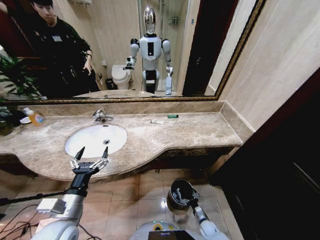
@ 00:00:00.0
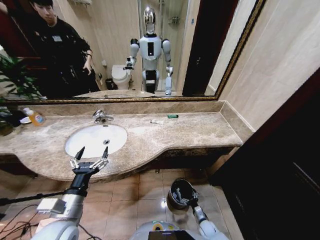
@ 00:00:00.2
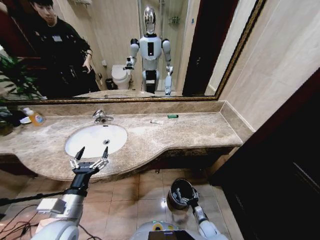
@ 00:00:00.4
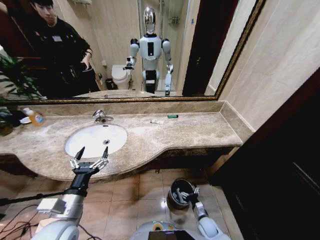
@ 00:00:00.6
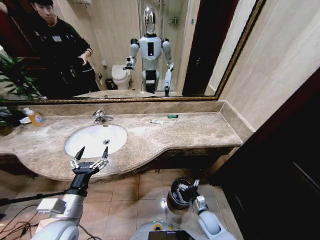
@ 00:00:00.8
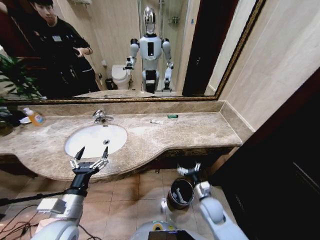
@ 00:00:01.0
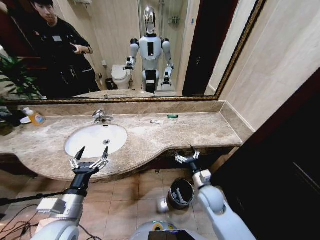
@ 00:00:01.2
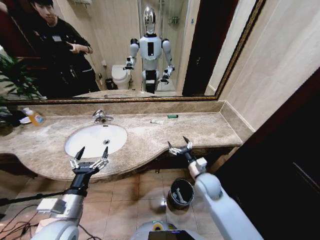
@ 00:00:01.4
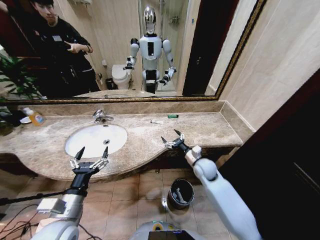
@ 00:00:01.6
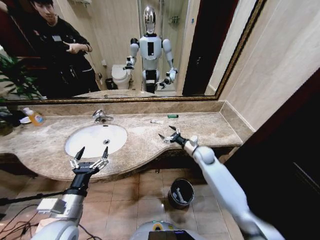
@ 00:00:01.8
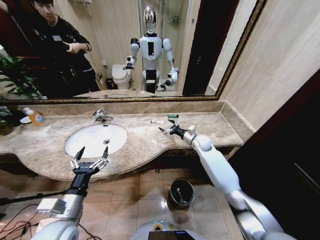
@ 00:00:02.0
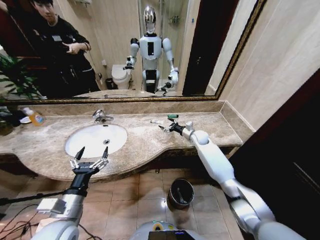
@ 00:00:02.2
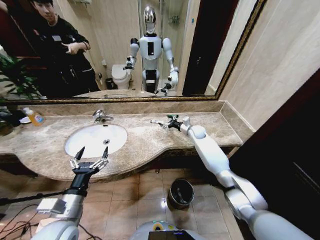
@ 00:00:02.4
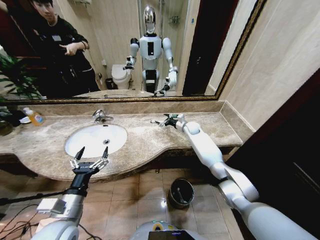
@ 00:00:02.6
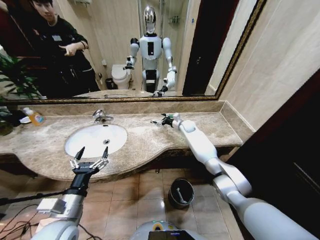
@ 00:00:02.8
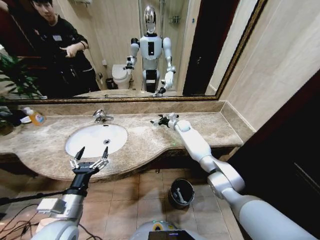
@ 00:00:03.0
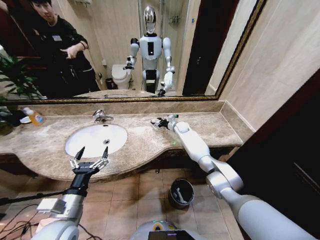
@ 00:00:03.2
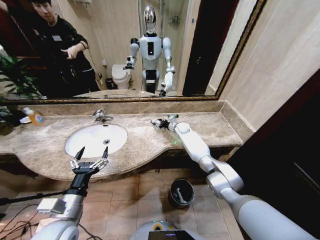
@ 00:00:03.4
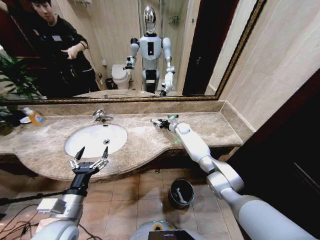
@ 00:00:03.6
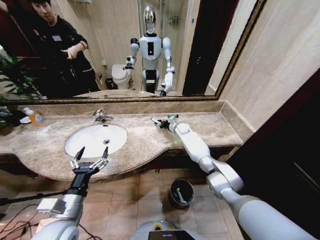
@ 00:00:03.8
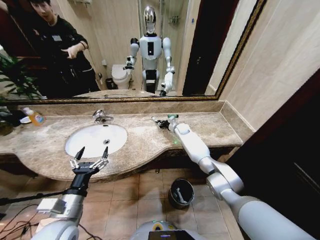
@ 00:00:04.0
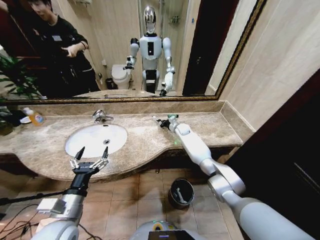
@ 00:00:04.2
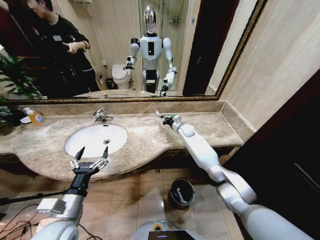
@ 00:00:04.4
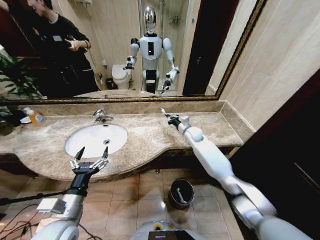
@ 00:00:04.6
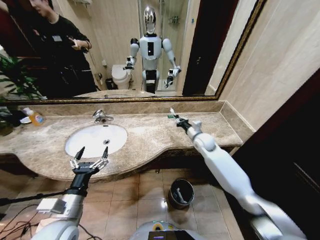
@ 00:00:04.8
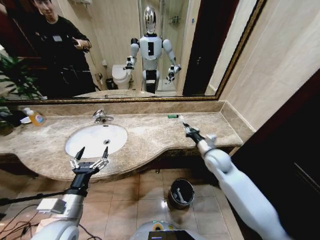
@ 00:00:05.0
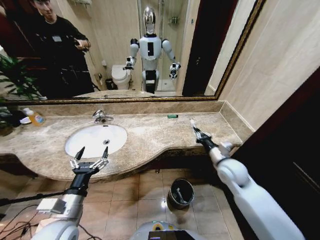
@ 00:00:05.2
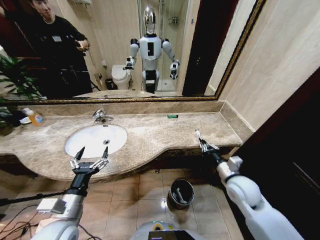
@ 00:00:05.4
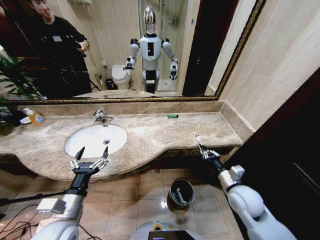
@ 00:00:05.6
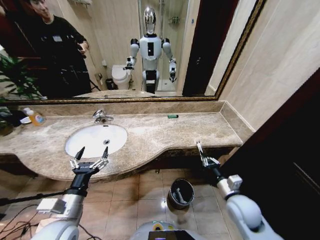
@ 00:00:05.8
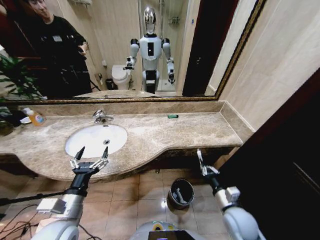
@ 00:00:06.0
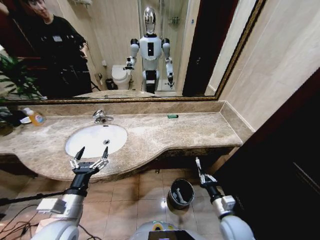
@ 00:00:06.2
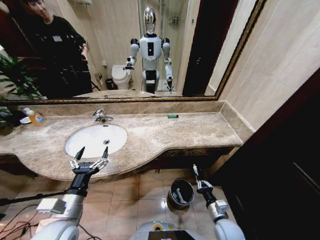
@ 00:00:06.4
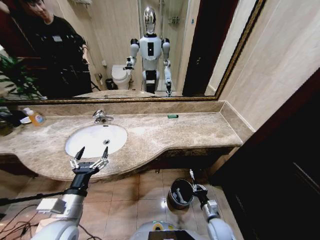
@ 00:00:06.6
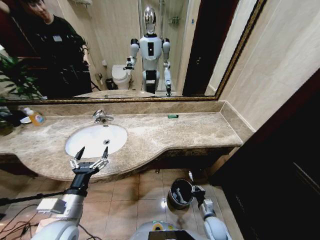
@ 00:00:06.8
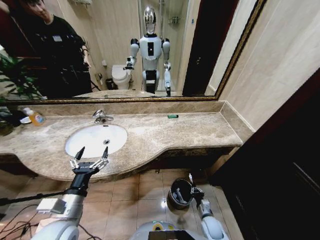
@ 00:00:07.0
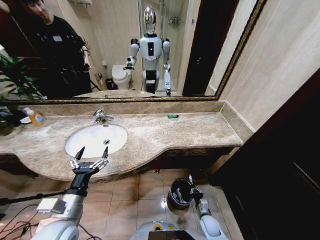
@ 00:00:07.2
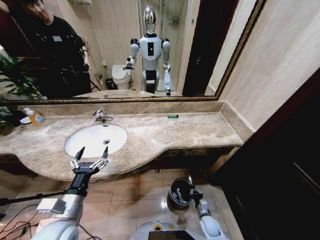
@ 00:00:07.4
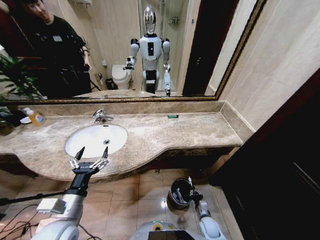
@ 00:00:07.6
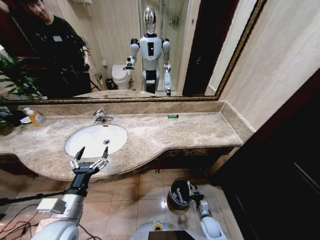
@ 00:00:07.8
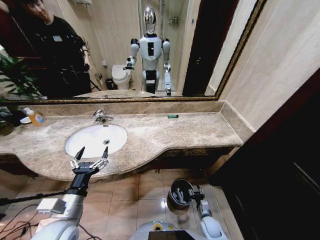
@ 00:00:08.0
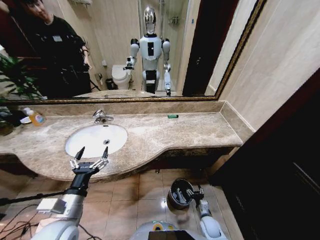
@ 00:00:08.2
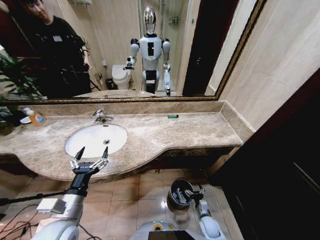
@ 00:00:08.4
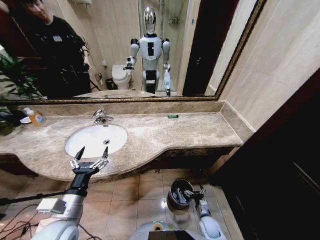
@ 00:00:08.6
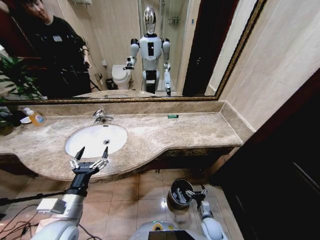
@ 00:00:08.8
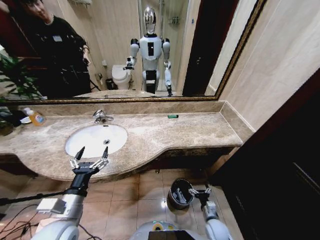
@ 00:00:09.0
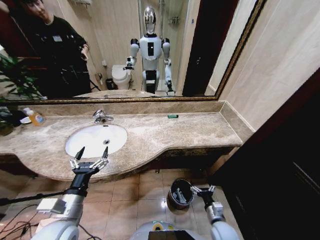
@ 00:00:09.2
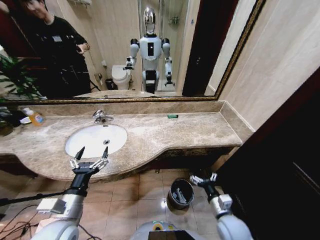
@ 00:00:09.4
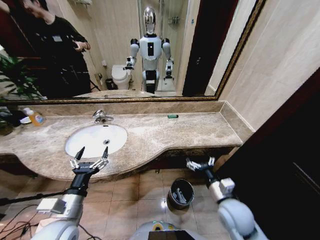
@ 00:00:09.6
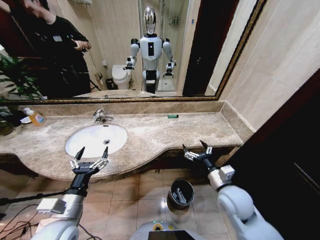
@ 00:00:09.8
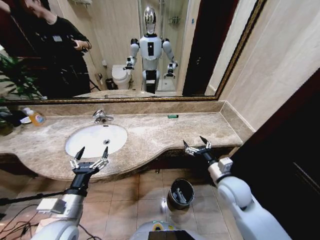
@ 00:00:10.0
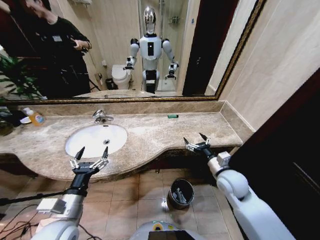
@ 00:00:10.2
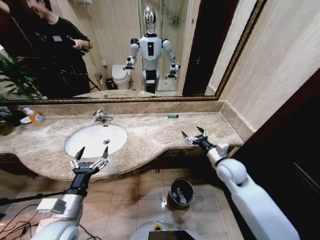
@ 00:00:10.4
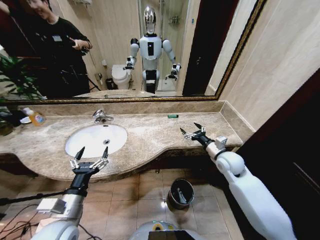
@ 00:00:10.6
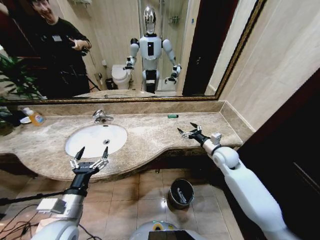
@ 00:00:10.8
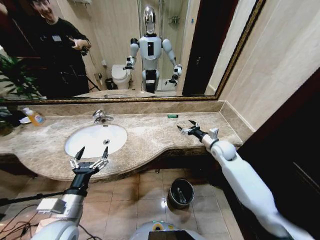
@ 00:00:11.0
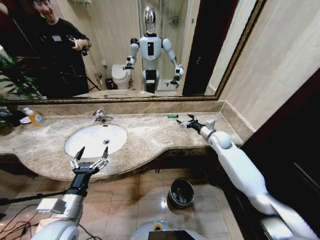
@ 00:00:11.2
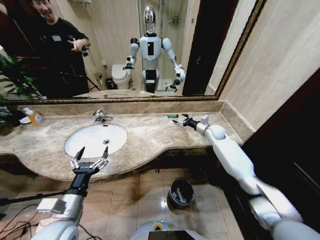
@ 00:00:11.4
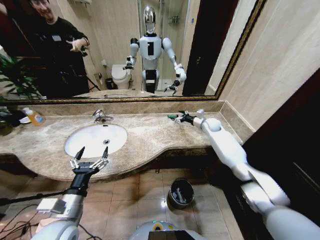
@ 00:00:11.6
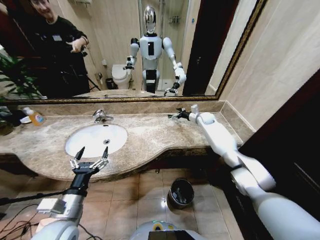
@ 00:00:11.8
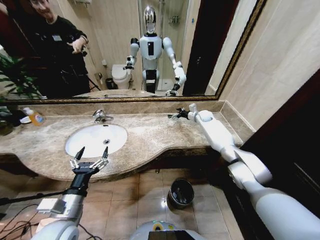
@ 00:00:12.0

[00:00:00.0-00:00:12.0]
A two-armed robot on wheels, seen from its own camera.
Task of the whole recording: Pick up the trash from the sink and place it in the trash bin.
00:00:00.0 to 00:00:01.6: The right gripper is displaced upward and forward by about 40 cm.
00:00:01.6 to 00:00:03.0: The right gripper is displaced forward by about 25 cm.
00:00:03.0 to 00:00:04.4: The right gripper closes up.
00:00:04.4 to 00:00:06.0: The right gripper shifts about 40 cm backward.
00:00:06.0 to 00:00:07.6: The right gripper goes about 25 cm downward.
00:00:07.6 to 00:00:09.0: The right gripper is displaced upward by some 5 cm, and opens.
00:00:09.0 to 00:00:10.4: The right gripper moves upward and forward, approximately 30 cm.
00:00:10.4 to 00:00:12.0: The right gripper heads forward, covering approximately 35 cm.

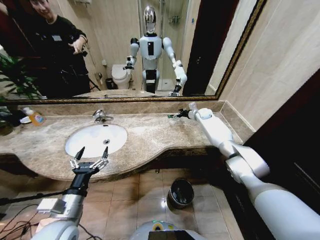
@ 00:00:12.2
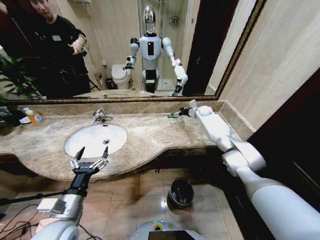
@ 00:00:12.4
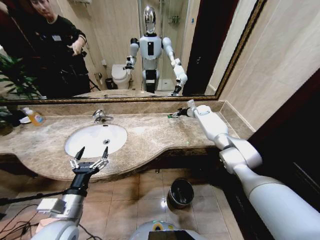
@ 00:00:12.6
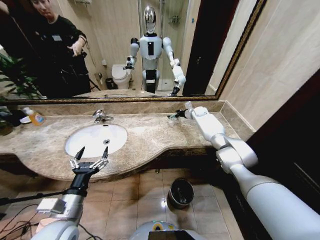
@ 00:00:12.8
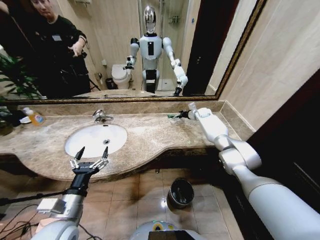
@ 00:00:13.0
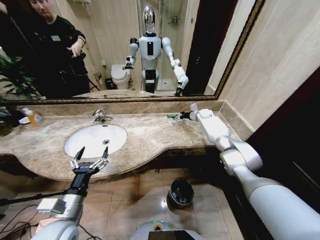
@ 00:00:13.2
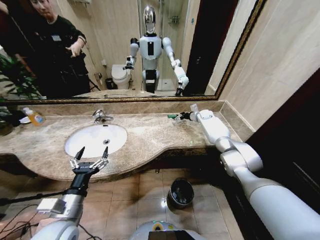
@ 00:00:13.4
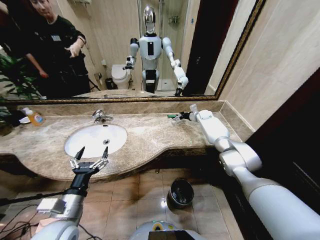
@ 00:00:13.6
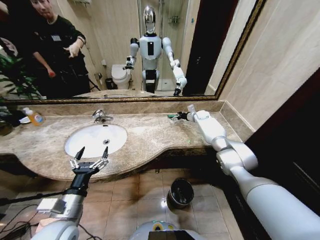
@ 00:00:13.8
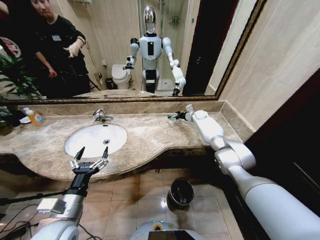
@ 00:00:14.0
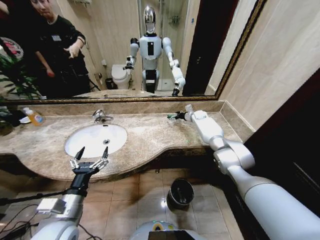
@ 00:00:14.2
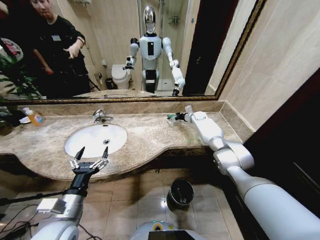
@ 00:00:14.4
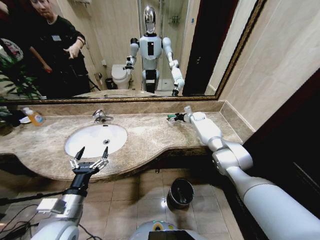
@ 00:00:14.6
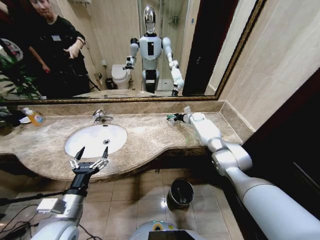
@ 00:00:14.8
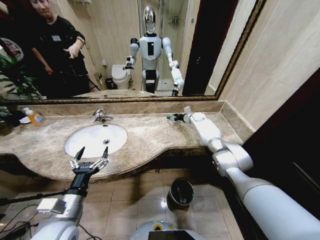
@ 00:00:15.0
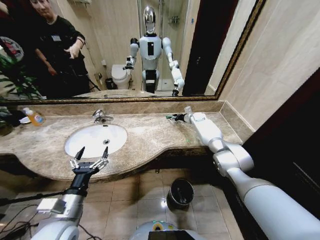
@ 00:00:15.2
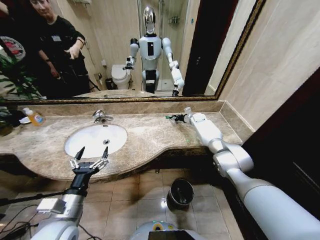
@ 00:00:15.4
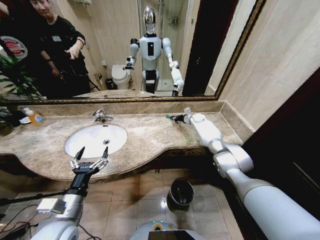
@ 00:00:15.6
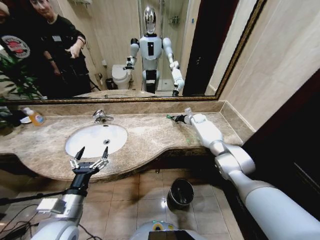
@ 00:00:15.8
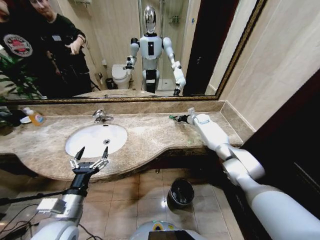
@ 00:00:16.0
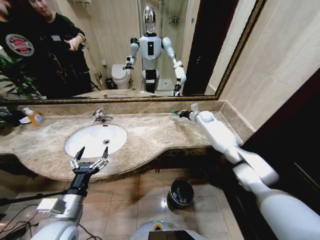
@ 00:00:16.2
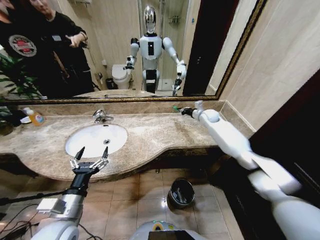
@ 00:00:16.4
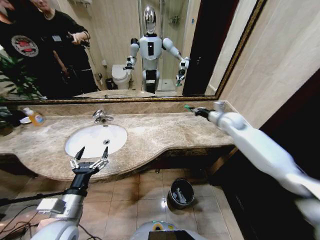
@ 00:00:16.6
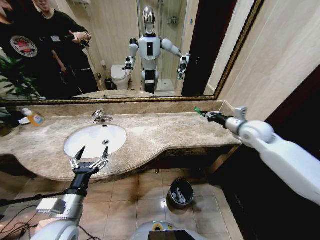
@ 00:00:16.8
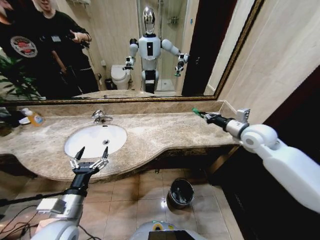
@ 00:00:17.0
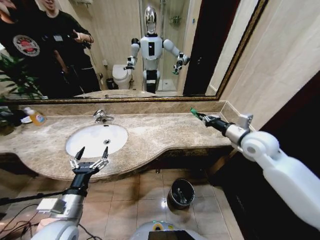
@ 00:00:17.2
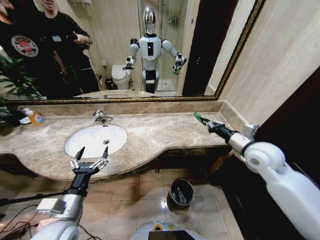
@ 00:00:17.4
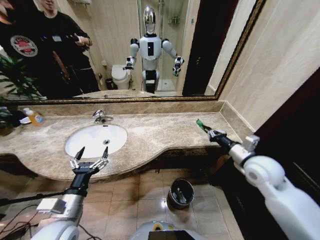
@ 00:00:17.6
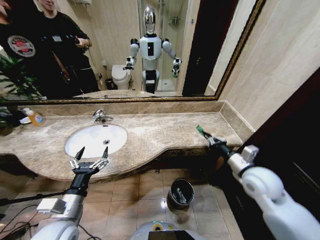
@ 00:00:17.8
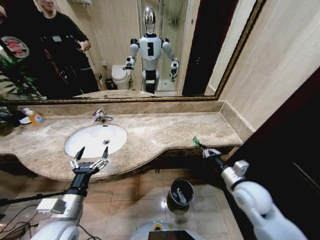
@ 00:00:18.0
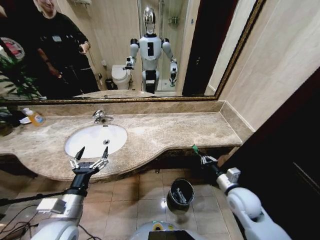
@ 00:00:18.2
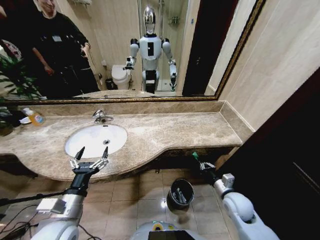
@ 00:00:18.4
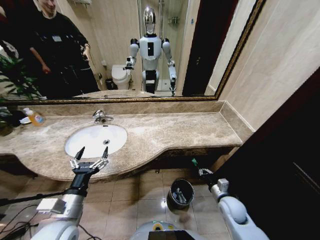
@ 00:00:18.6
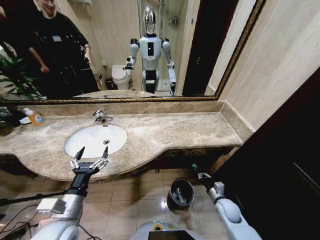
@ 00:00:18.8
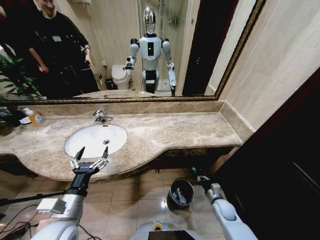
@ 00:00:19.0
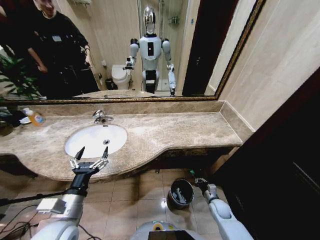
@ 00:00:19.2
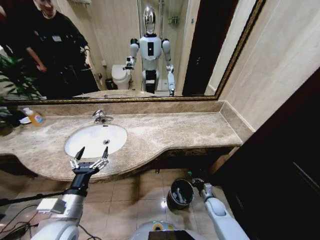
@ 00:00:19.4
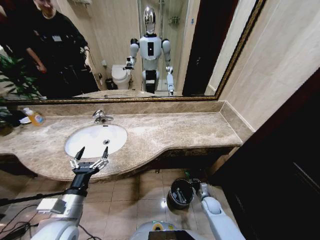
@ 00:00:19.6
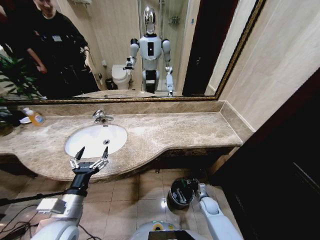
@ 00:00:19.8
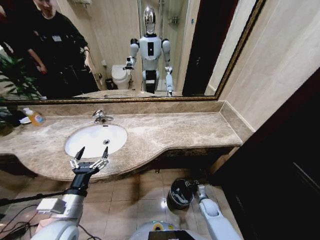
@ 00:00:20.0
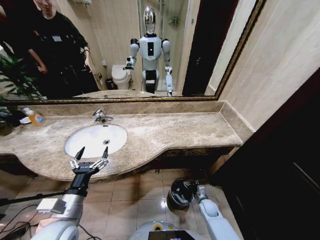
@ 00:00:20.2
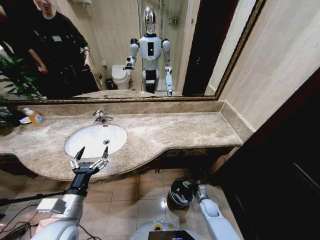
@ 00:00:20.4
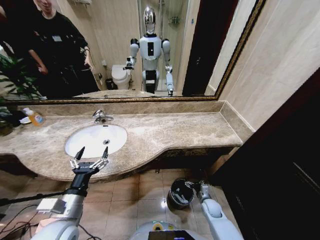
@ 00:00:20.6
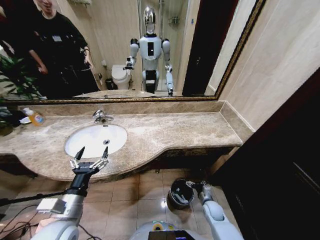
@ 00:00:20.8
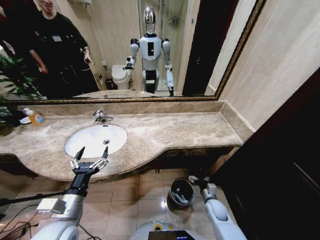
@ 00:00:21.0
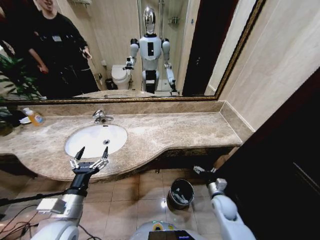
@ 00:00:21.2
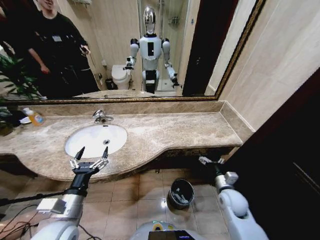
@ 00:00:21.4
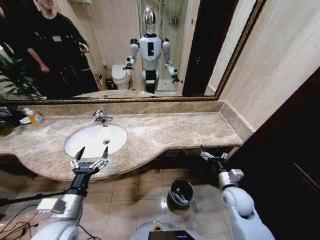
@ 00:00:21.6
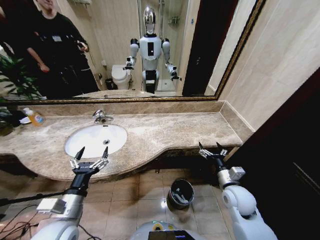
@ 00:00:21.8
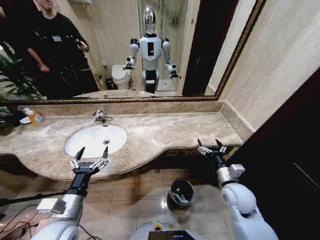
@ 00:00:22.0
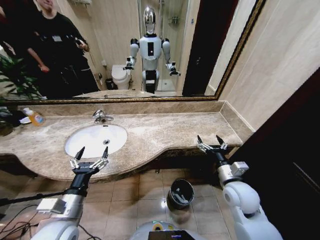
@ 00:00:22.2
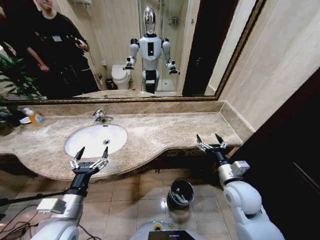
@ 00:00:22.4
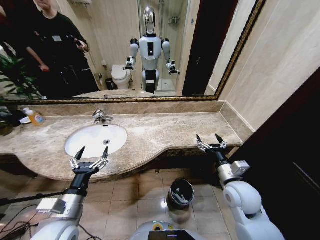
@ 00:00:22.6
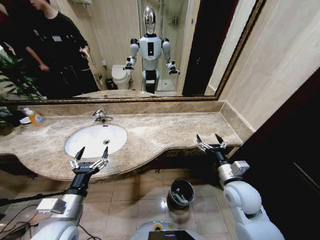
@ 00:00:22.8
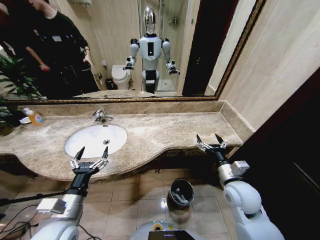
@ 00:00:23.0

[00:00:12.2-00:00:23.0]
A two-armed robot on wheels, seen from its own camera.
Task of the whole recording: Pick up the trash from the sink and place it in the trash bin.
00:00:12.2 to 00:00:13.8: There are only small adjustments of the grippers.
00:00:13.8 to 00:00:15.2: The right gripper closes its fingers.
00:00:15.2 to 00:00:16.8: The right gripper heads backward and upward, covering about 30 cm, and closes its fingers.
00:00:16.8 to 00:00:18.4: The right gripper shifts approximately 30 cm downward and backward.
00:00:18.4 to 00:00:20.0: The right gripper goes some 20 cm downward, and opens its fingers.
00:00:20.0 to 00:00:21.4: The right gripper moves upward, about 20 cm, and opens its fingers.
00:00:21.4 to 00:00:23.0: The right gripper moves upward, roughly 10 cm.
